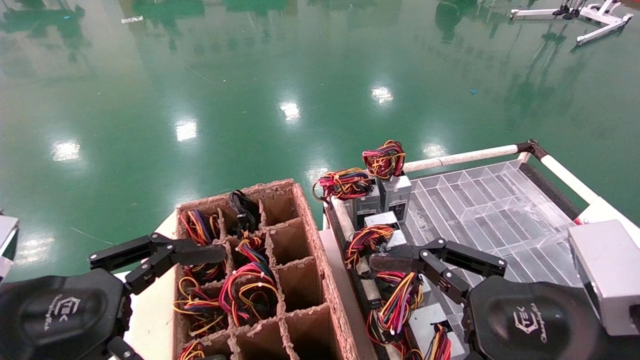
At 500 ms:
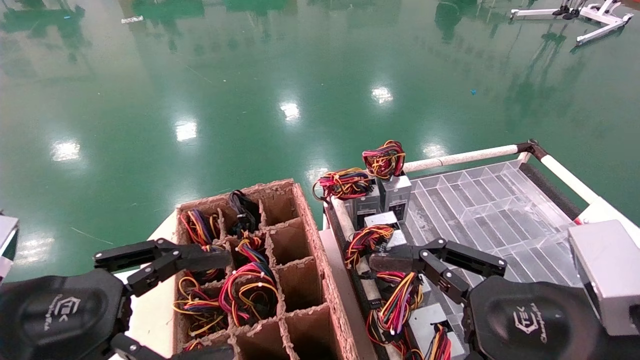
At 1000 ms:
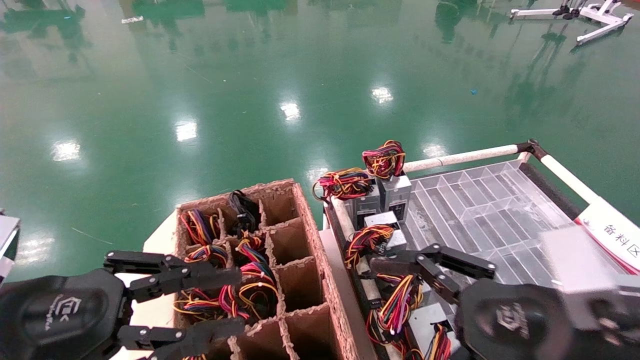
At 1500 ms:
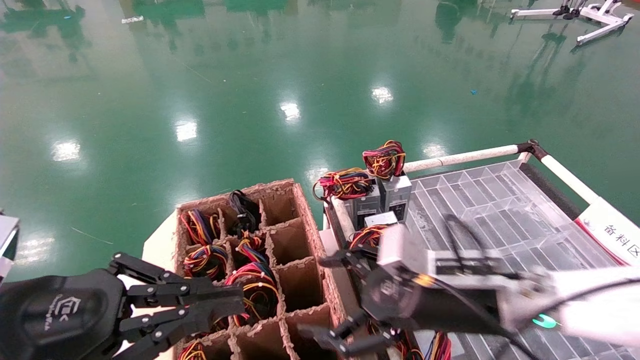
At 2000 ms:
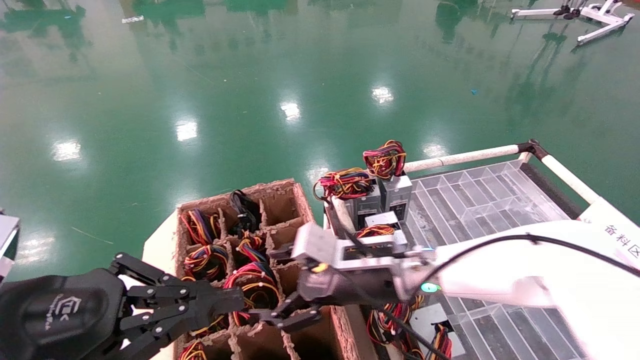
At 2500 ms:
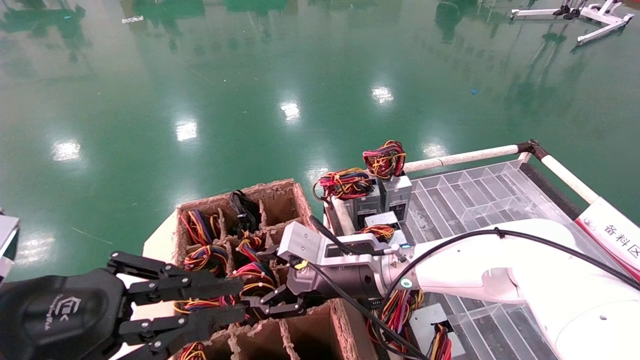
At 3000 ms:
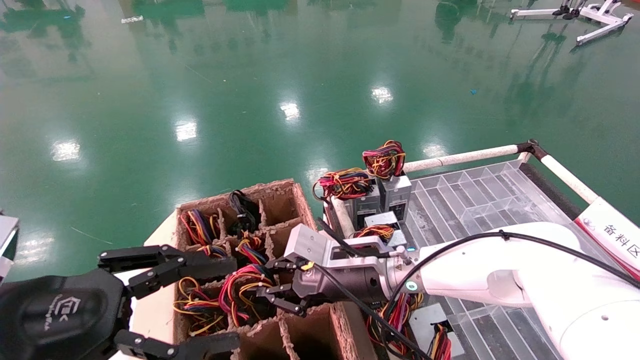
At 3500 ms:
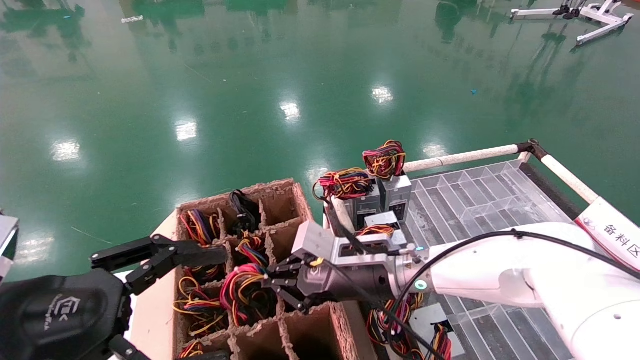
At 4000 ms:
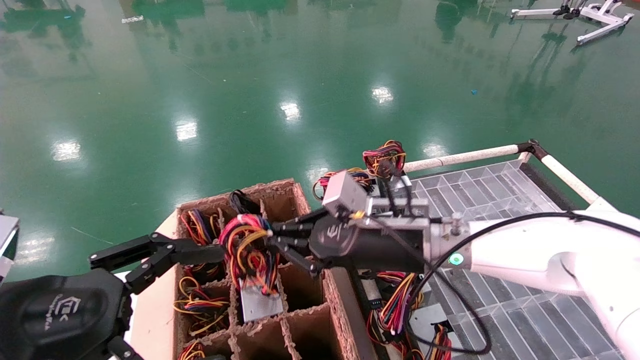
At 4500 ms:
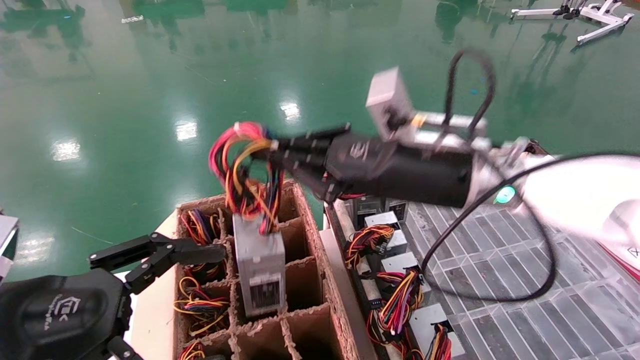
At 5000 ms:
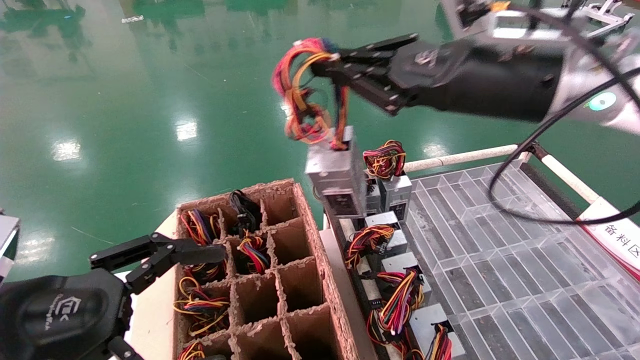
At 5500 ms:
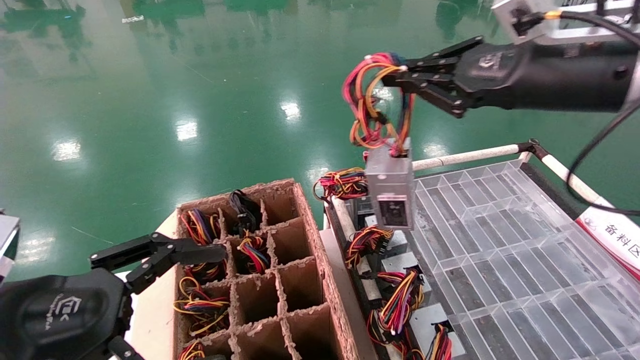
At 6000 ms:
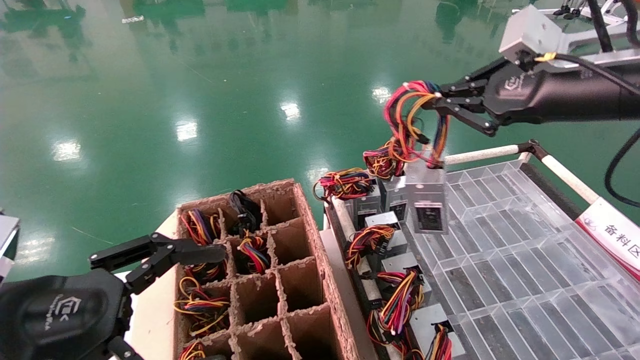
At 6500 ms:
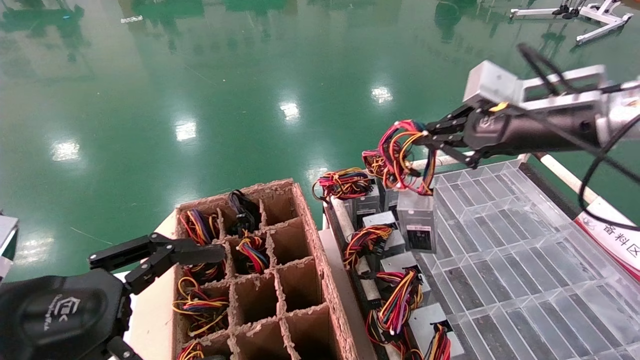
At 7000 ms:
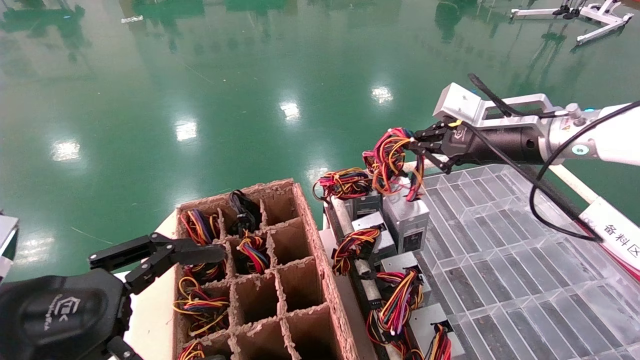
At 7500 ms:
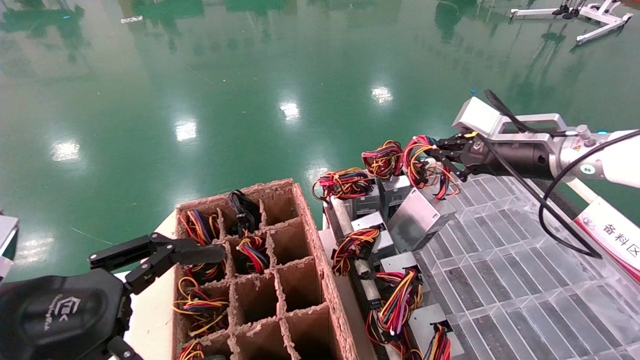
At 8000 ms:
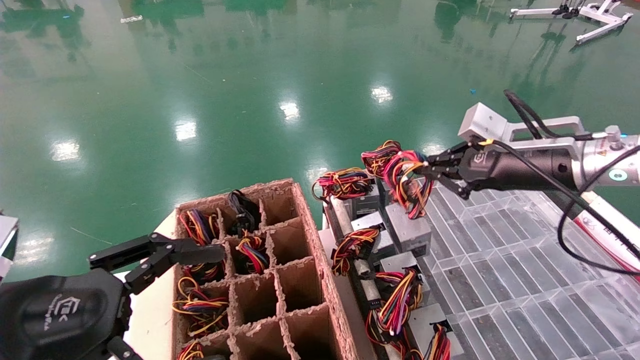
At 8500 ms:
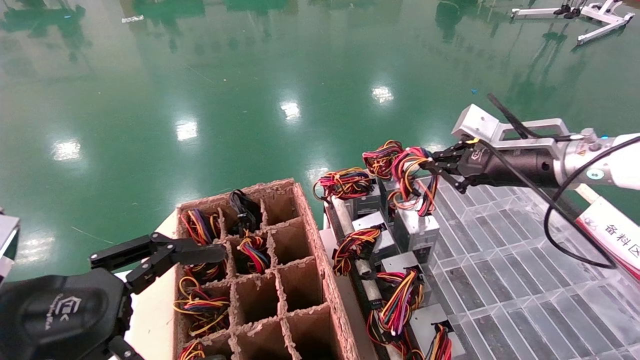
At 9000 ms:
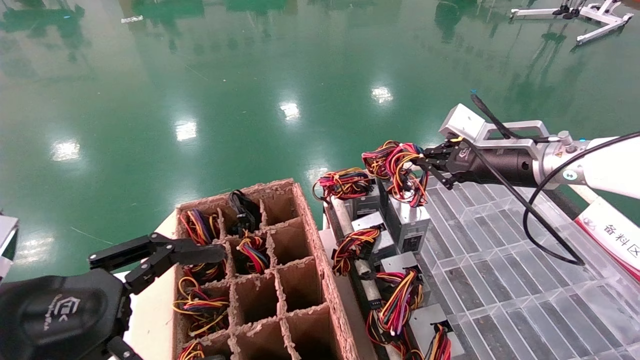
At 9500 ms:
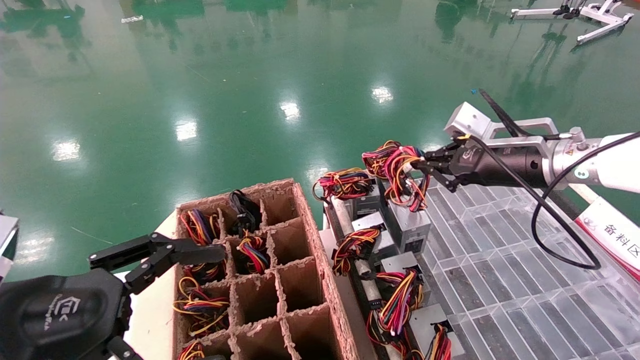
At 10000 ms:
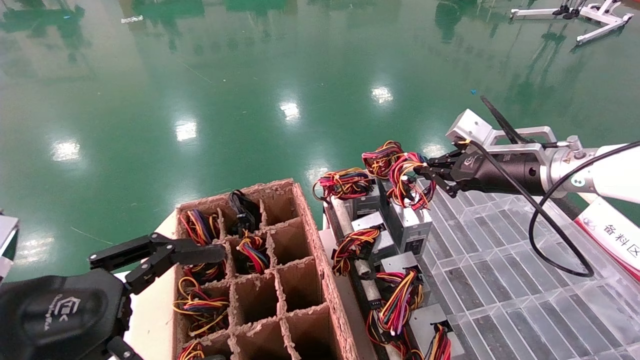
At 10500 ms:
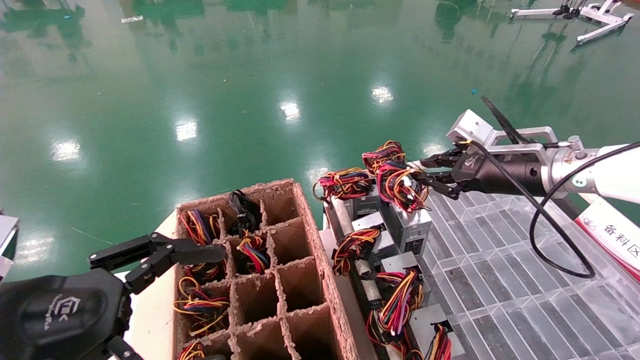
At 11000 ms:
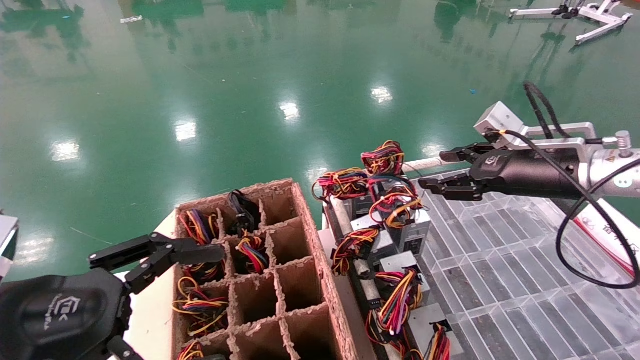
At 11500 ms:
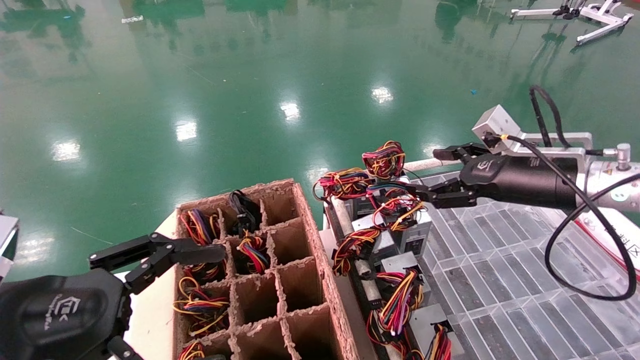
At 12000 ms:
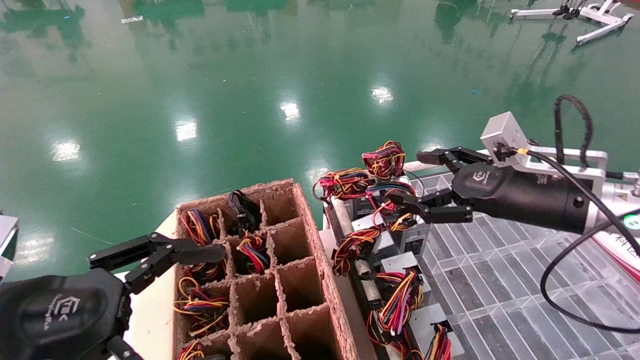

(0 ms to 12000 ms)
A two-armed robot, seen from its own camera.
Step, 1500 ms - 3000 ms: Grab and lift the power supply from the large box.
Step, 3500 ms - 10000 ms: Place the power supply on the operating table.
0 ms - 2000 ms: The left gripper closes its fingers; the right gripper goes some 25 cm forward and to the left.
2000 ms - 4000 ms: The right gripper heads upward, covering roughly 5 cm, and closes up. The left gripper opens its fingers.
4000 ms - 6000 ms: The right gripper shifts about 25 cm to the right and upward.
6000 ms - 8000 ms: The right gripper goes some 10 cm downward and forward.
8000 ms - 10000 ms: The grippers move only a little.
10000 ms - 12000 ms: The right gripper shifts some 5 cm backward, and opens.
